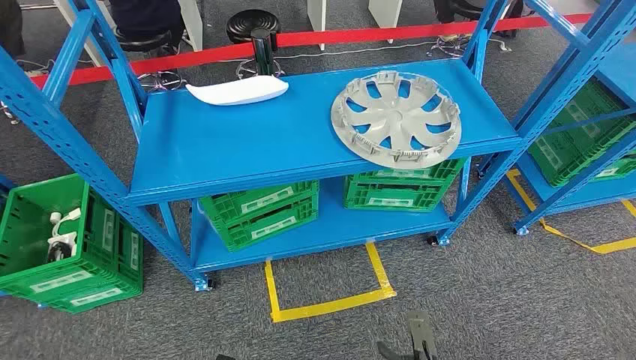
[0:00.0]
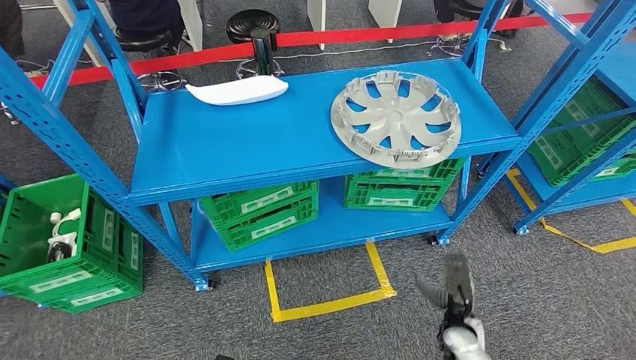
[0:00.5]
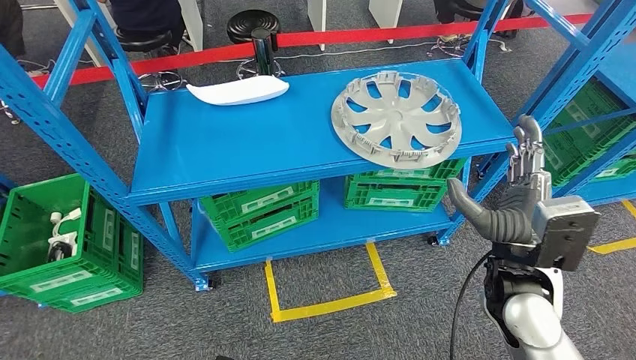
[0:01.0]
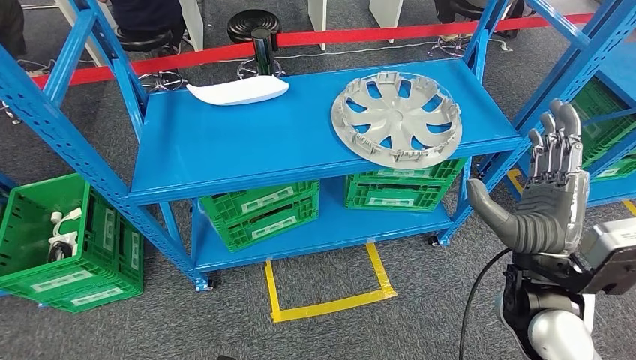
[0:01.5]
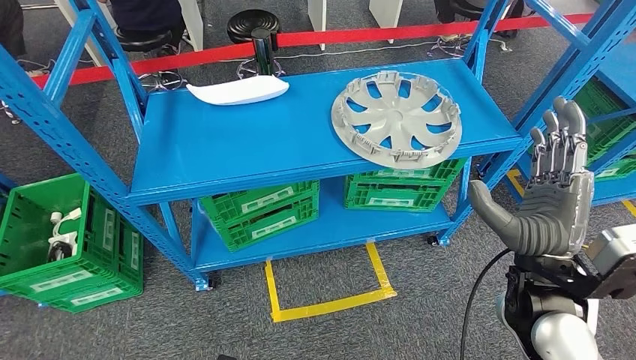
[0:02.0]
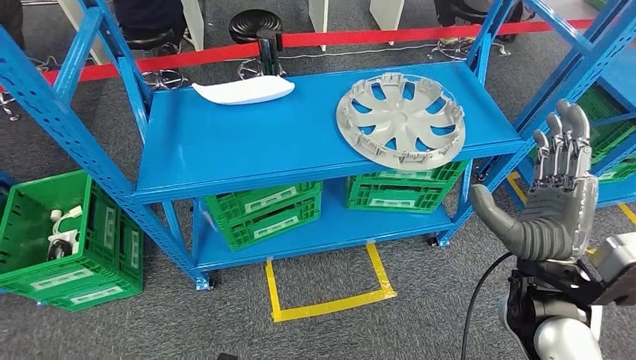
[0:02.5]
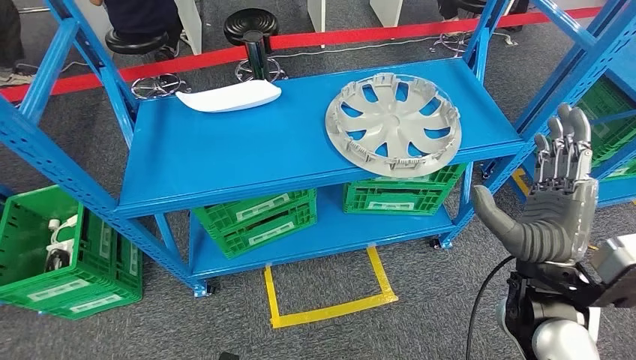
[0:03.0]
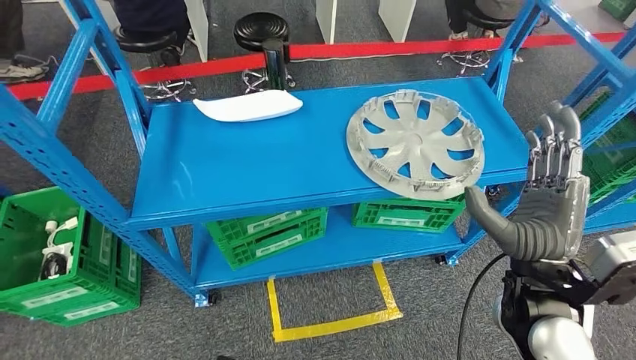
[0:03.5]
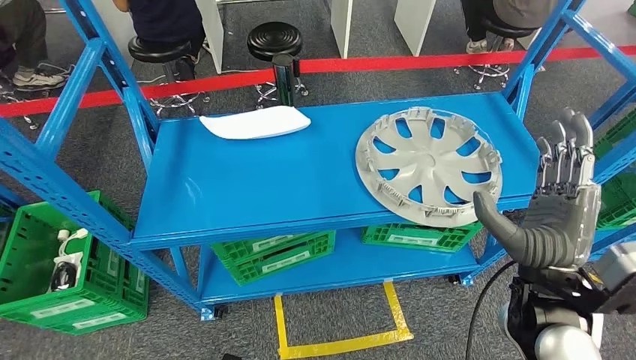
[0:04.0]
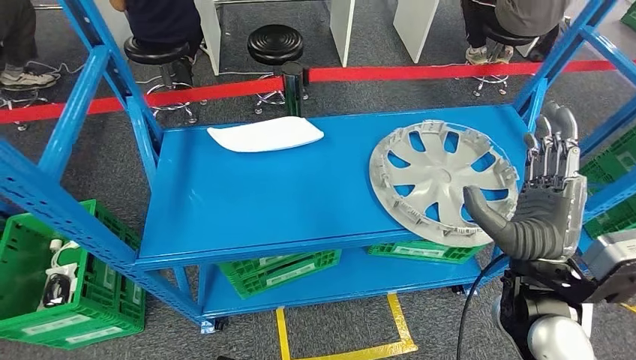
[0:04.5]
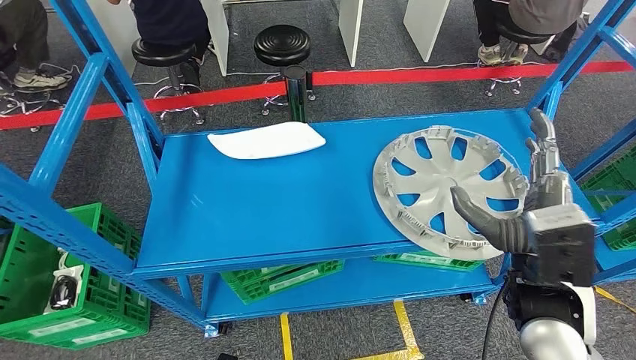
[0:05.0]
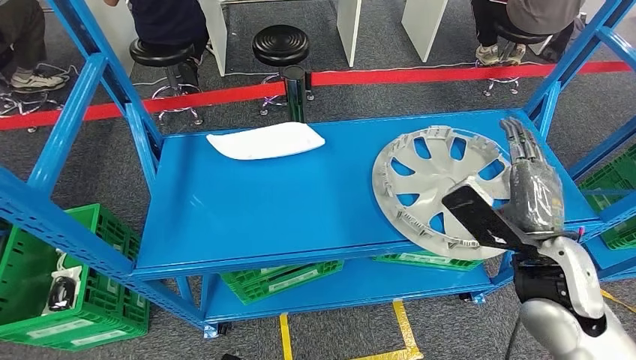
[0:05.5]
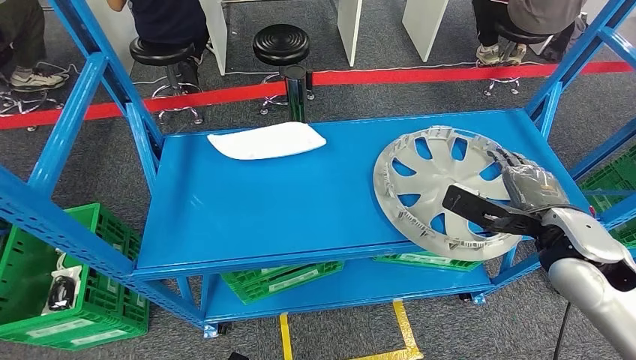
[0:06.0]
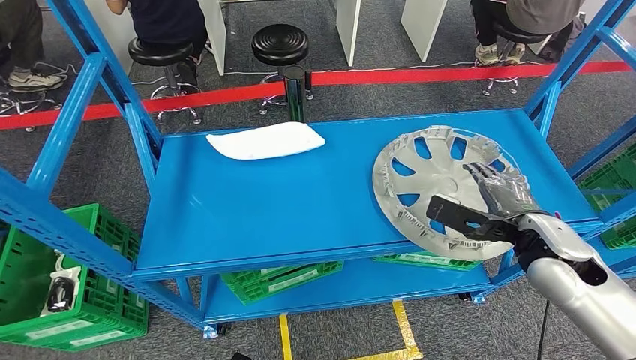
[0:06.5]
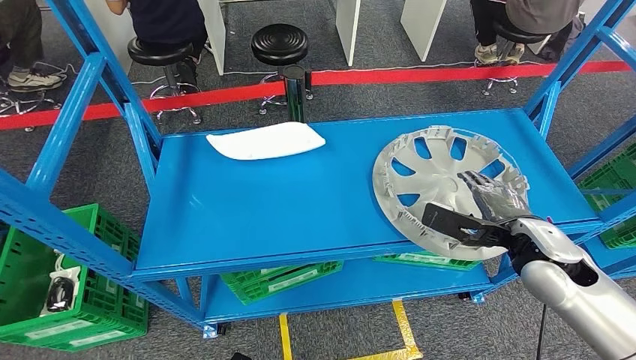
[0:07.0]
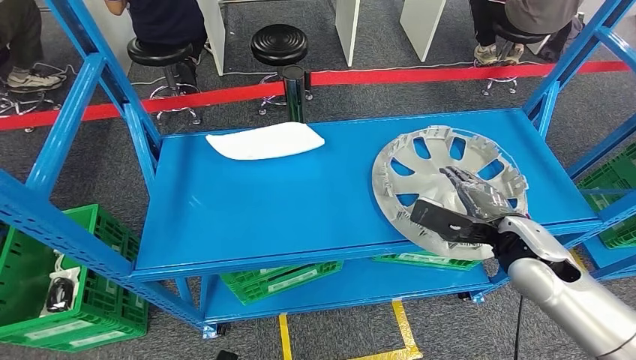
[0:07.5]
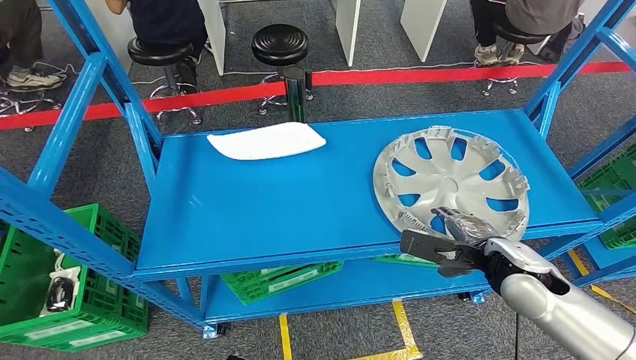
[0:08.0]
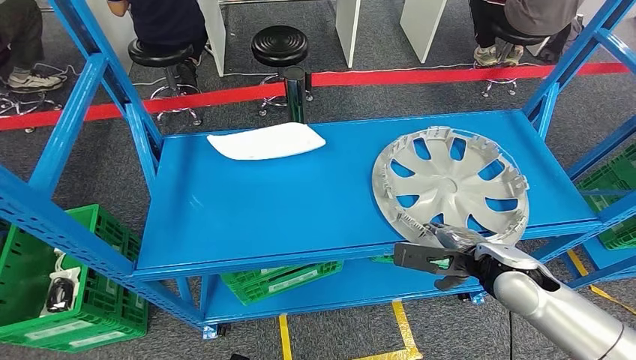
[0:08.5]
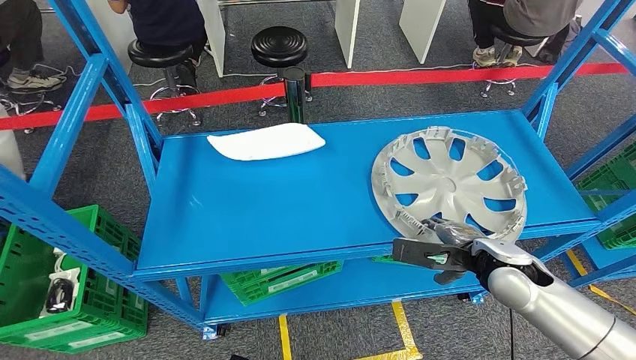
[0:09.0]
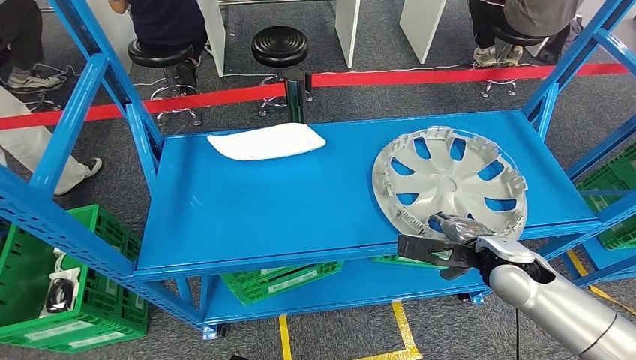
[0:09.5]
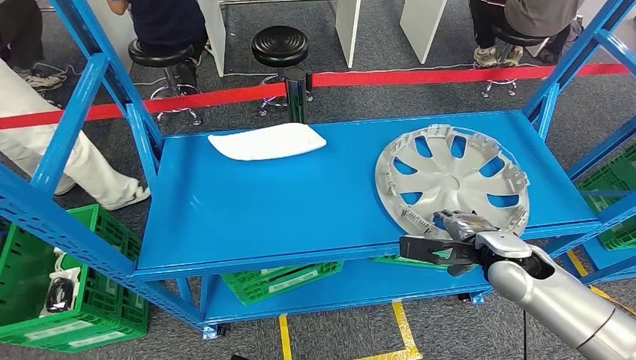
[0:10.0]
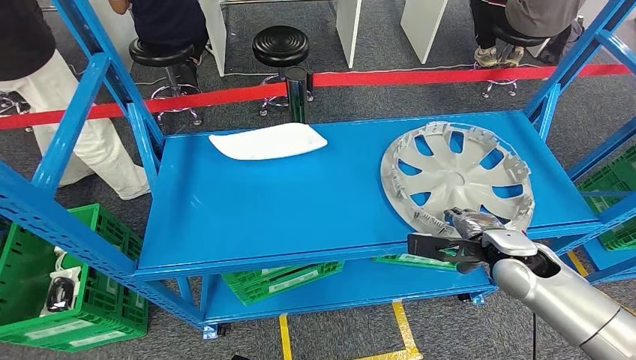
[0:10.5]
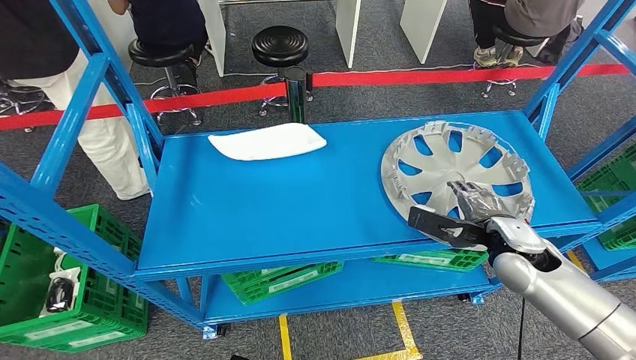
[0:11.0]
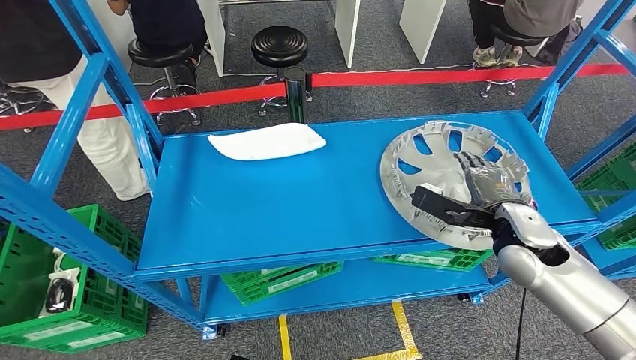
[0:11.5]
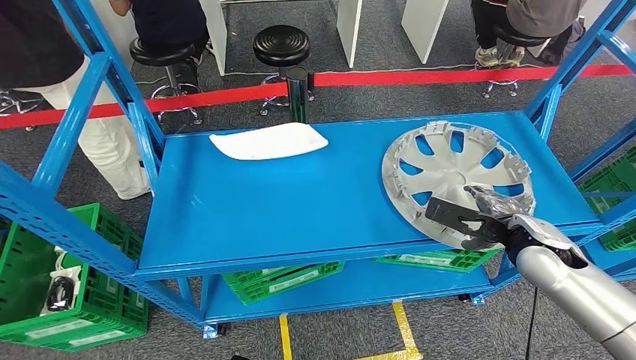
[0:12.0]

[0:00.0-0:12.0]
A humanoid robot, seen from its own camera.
0:06.0 to 0:08.0: The right hand shifts about 5 cm downward.
0:08.0 to 0:10.0: The hands stay close to where they were, moving slightly.

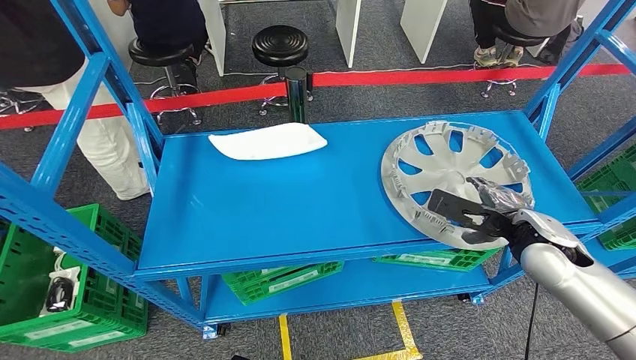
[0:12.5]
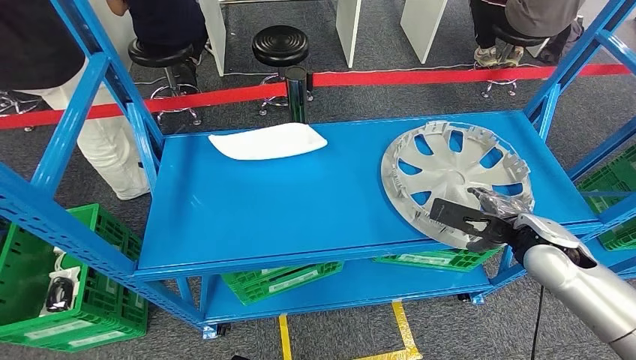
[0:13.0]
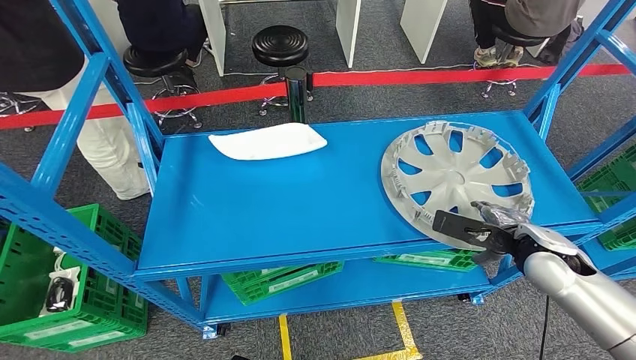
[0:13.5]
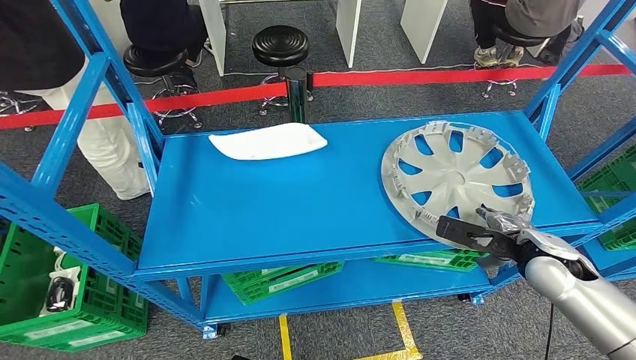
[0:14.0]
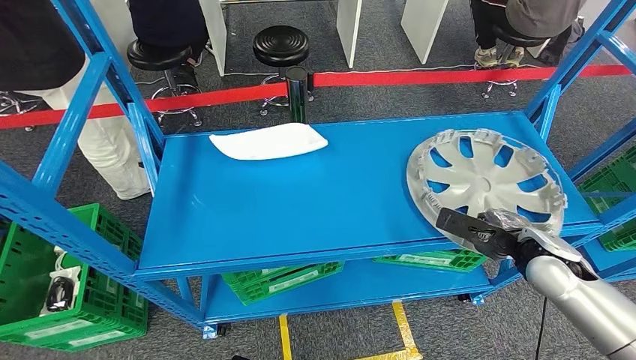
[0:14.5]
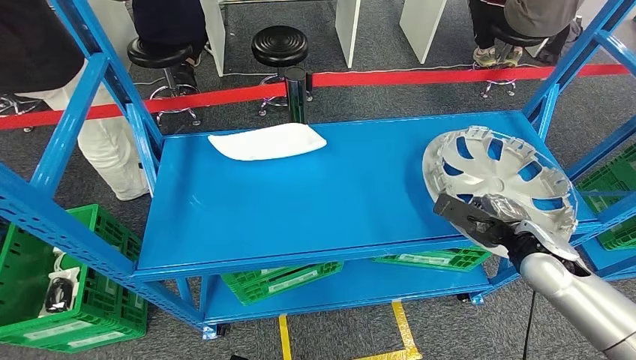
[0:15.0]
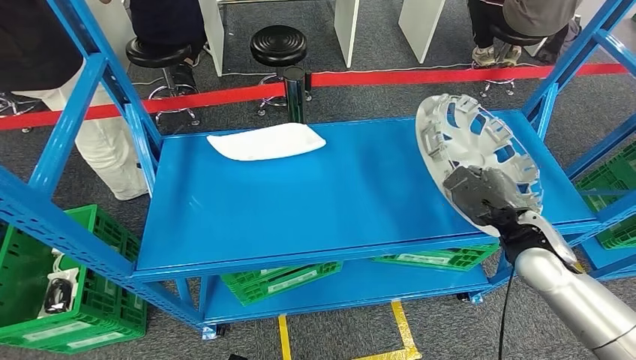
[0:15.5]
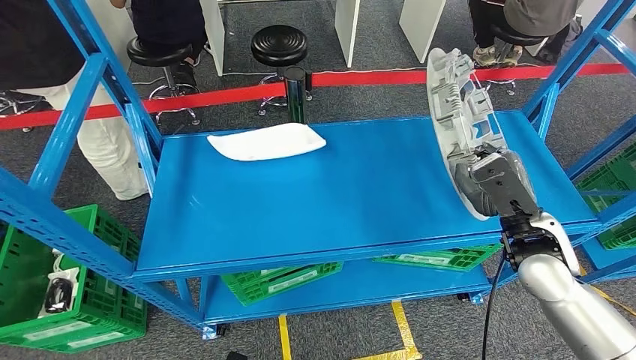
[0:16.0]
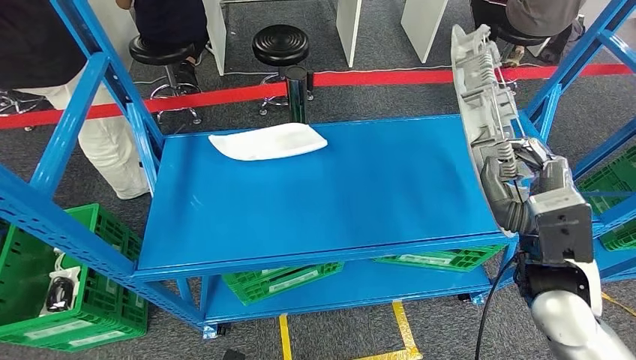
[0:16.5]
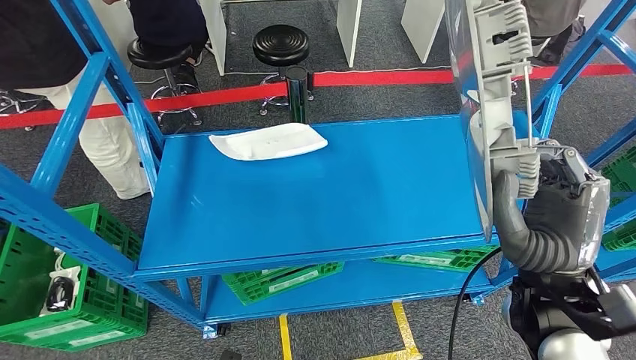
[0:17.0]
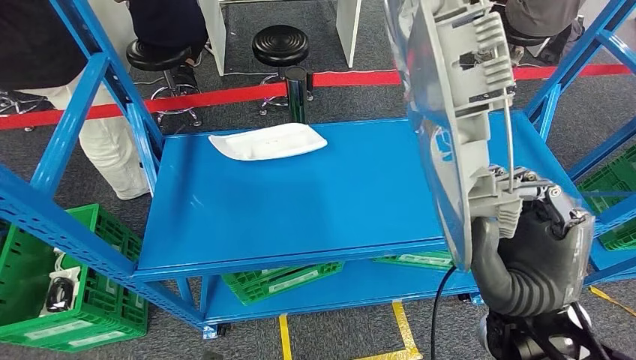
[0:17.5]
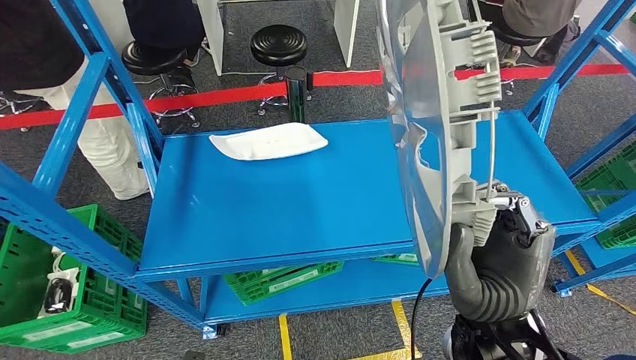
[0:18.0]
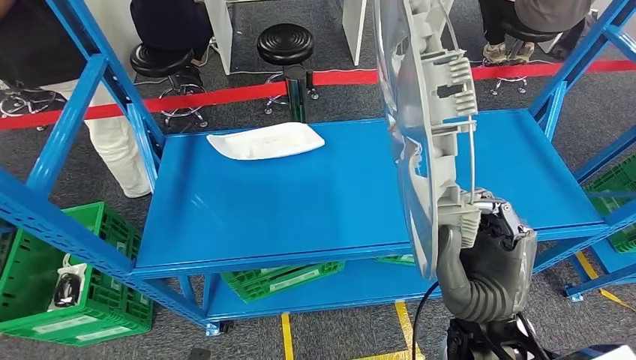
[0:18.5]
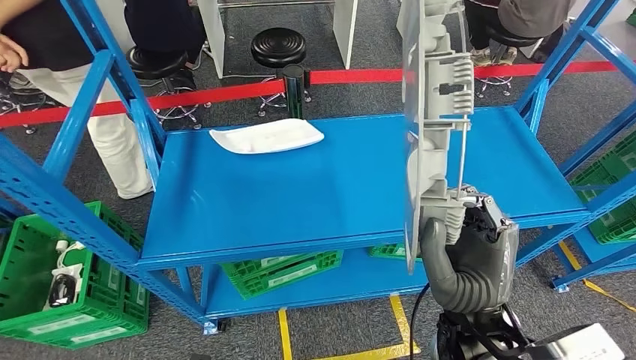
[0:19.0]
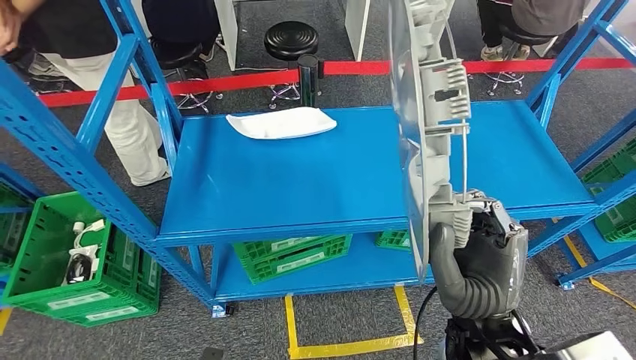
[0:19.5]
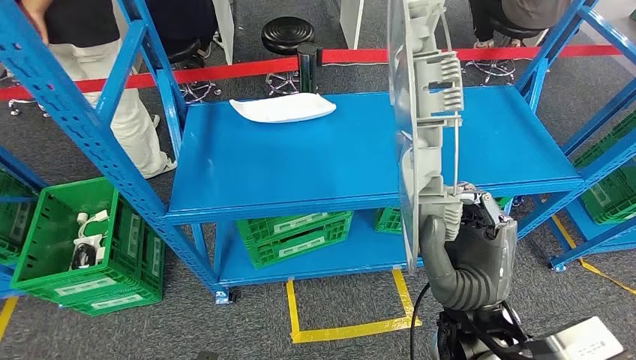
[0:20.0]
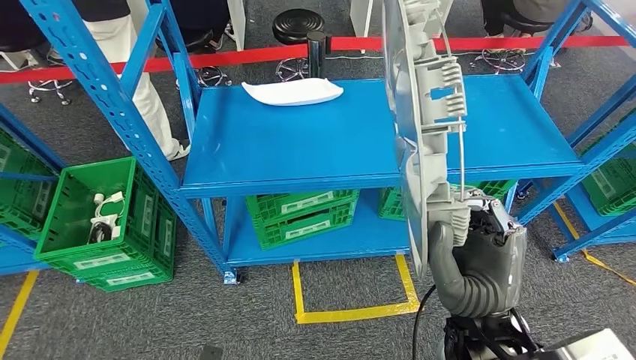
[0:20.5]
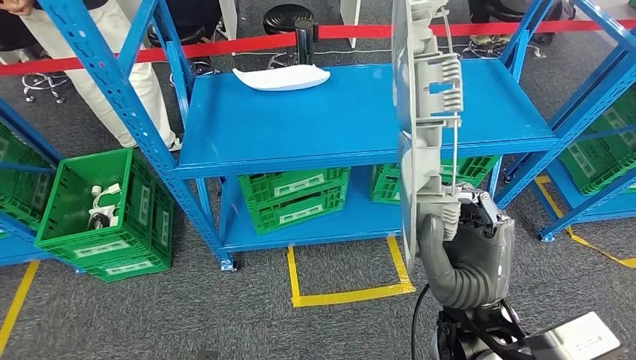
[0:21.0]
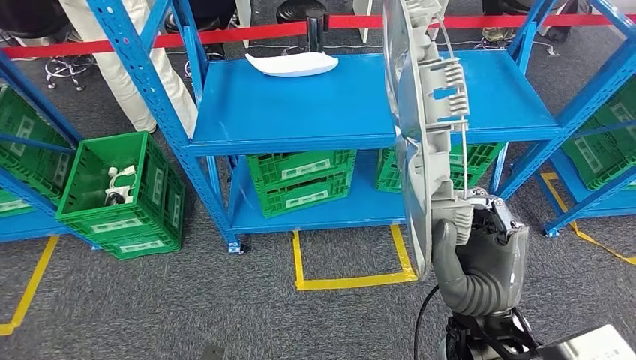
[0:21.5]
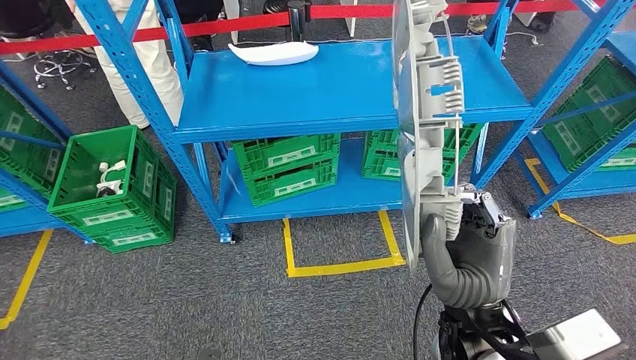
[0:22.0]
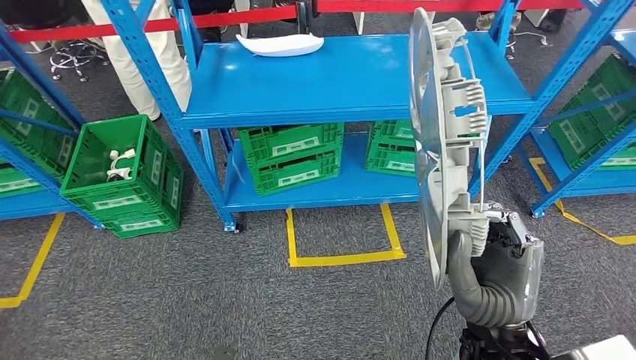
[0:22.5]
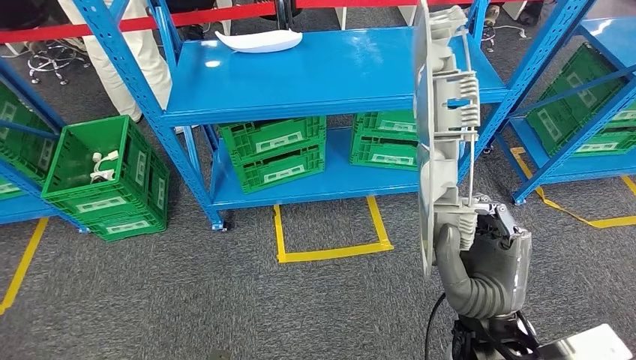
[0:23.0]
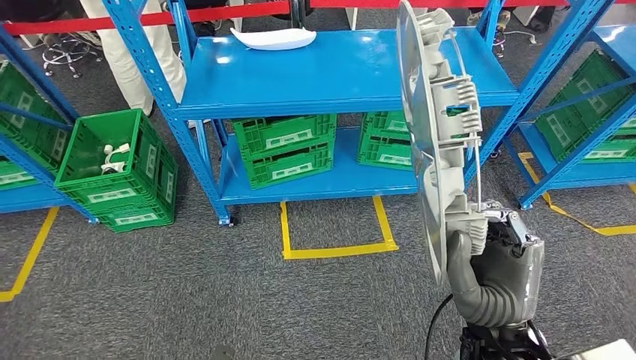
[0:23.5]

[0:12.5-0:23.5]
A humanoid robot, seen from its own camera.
Step, 0:12.5 to 0:16.5: Pick up the small component from the shelf.
0:12.5 to 0:14.5: There are only small adjustments of the hands.
0:14.5 to 0:16.0: The right hand heads to the left, covering roughly 5 cm.
